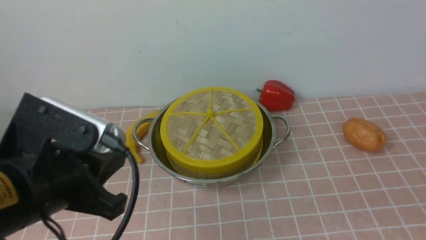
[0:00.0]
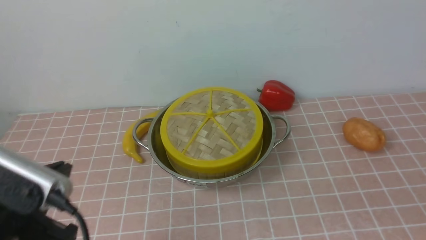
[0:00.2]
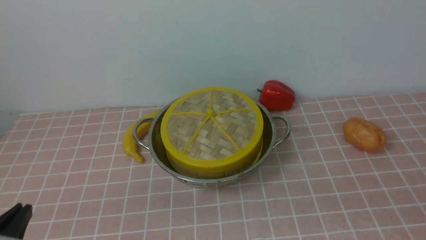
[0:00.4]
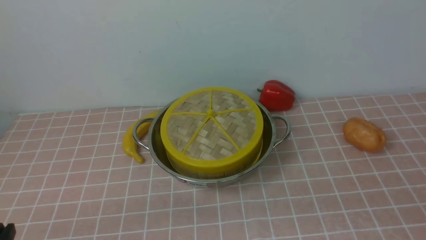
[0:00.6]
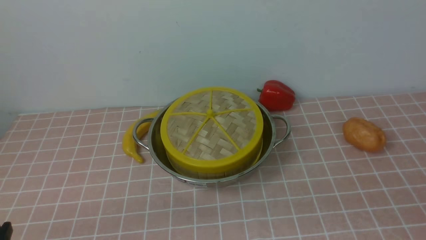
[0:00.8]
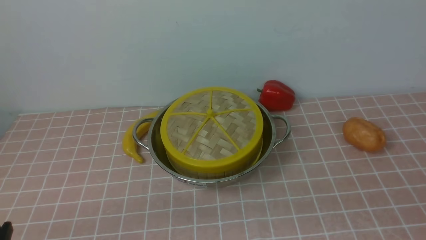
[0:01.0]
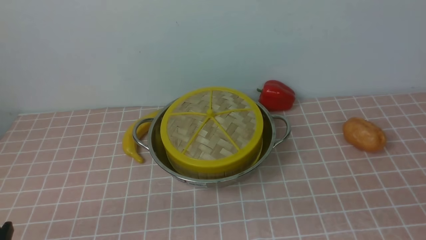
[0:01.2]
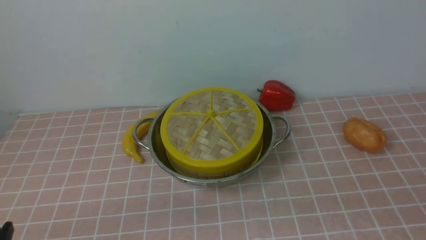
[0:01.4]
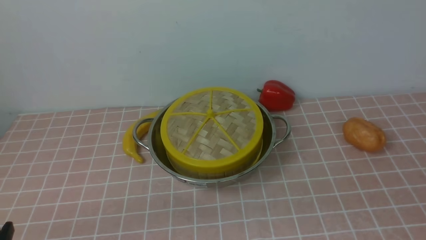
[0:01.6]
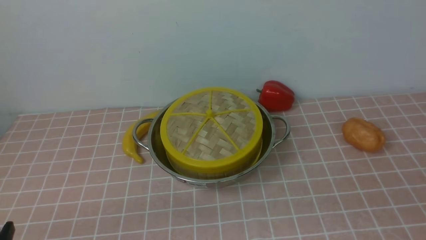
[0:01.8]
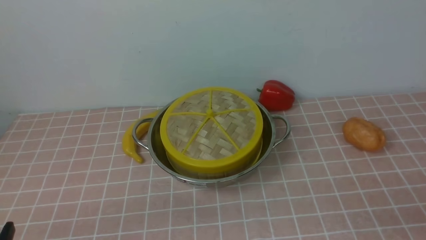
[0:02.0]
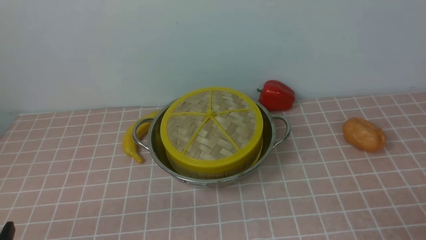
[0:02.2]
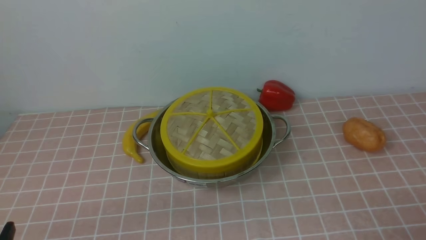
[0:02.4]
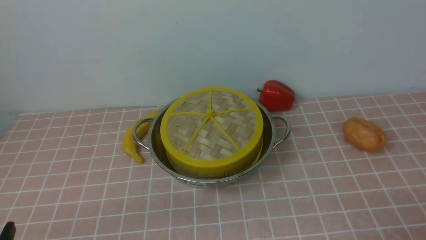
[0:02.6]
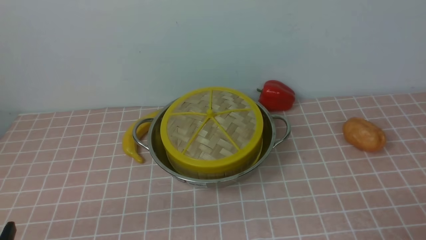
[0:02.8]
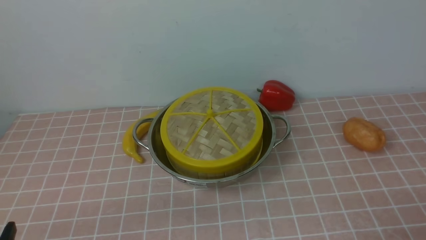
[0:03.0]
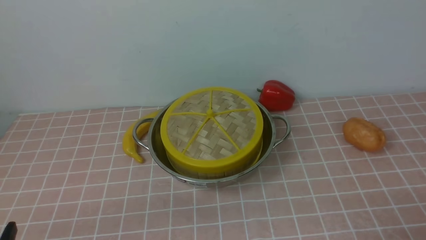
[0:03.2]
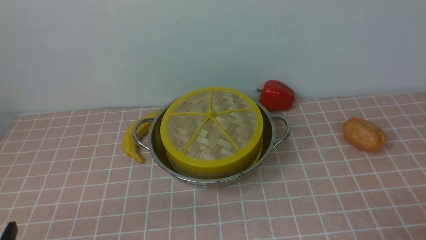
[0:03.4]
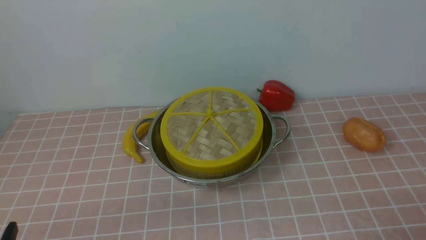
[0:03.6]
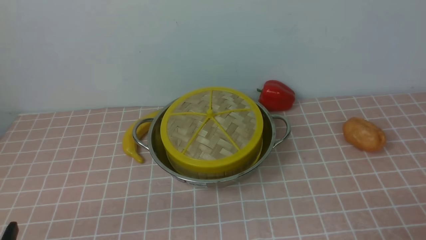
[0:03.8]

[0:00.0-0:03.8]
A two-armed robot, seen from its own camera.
Task of the whole recording: place the steamer in the pot on the pink tablecloth, and put the lid on the steamer.
0:00.0 to 0:01.2: The left gripper travels downward, backward and to the left by about 15 cm.
0:02.6 to 0:03.8: Both grippers stay about where they are.
